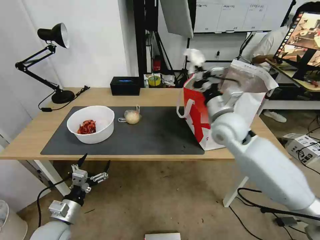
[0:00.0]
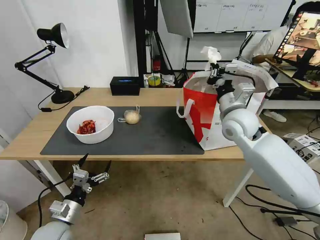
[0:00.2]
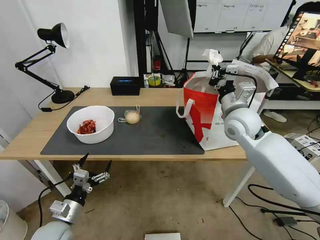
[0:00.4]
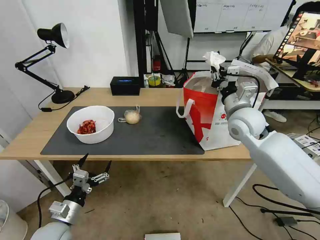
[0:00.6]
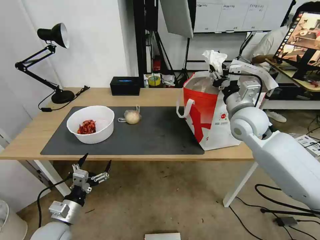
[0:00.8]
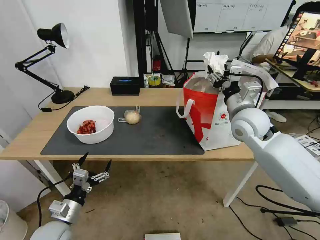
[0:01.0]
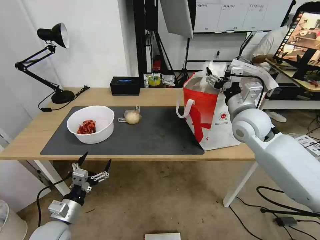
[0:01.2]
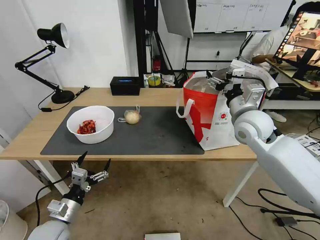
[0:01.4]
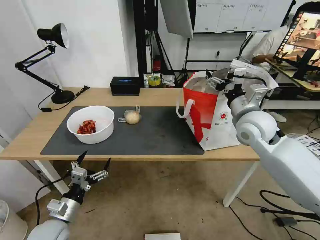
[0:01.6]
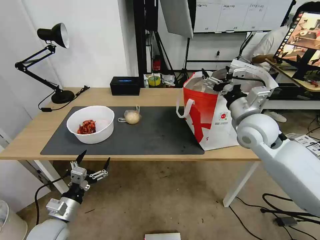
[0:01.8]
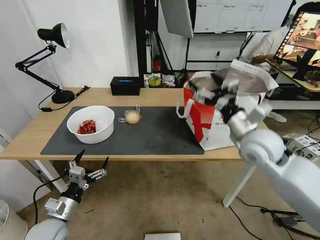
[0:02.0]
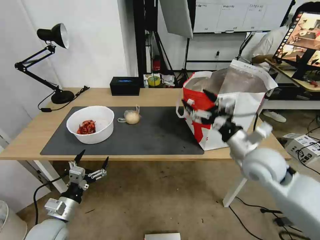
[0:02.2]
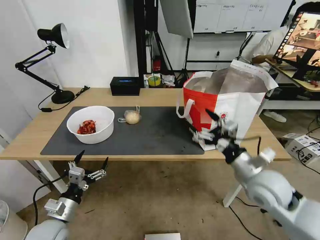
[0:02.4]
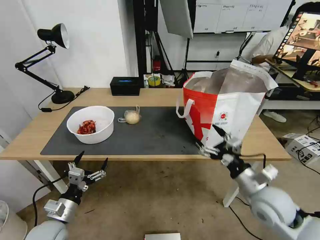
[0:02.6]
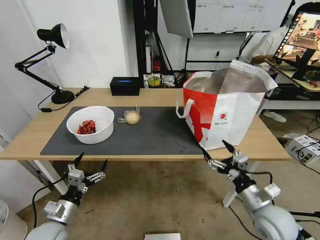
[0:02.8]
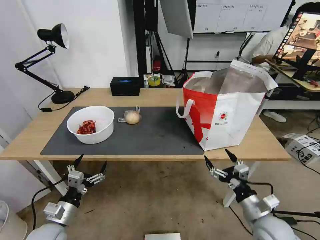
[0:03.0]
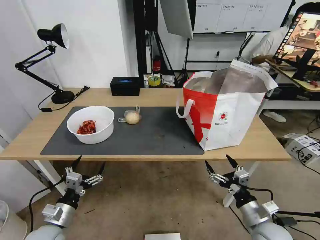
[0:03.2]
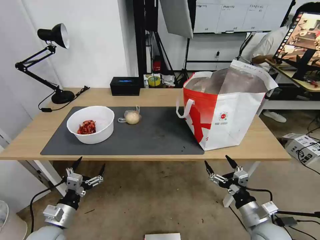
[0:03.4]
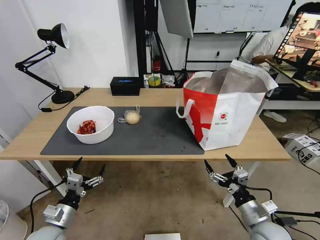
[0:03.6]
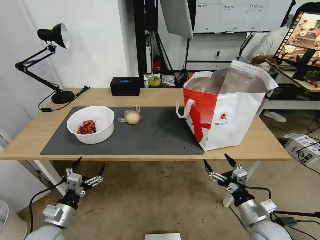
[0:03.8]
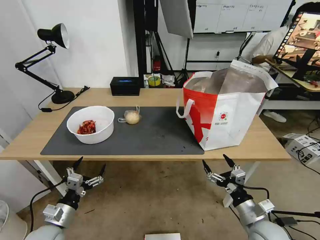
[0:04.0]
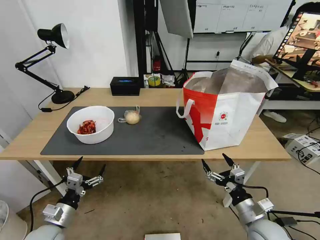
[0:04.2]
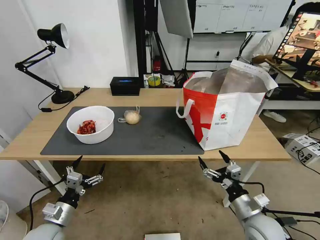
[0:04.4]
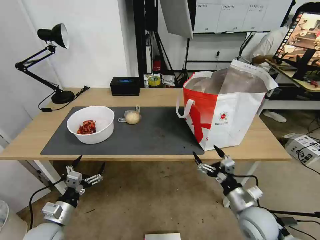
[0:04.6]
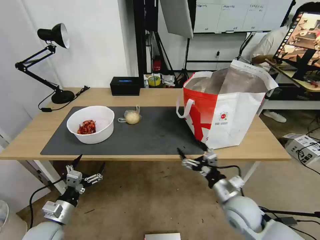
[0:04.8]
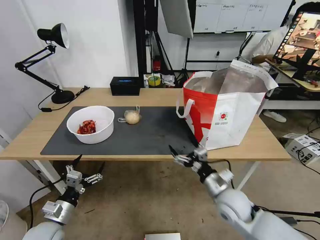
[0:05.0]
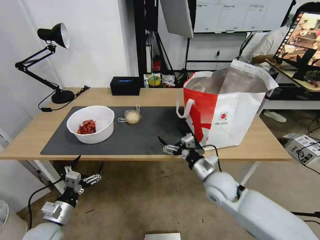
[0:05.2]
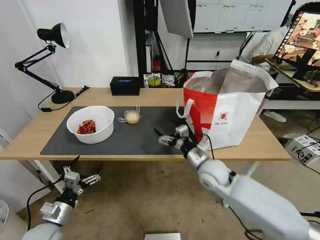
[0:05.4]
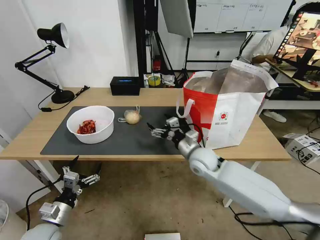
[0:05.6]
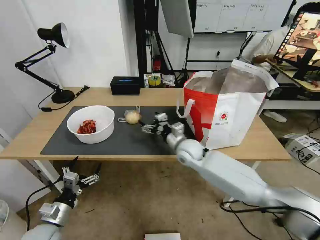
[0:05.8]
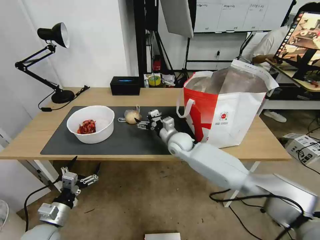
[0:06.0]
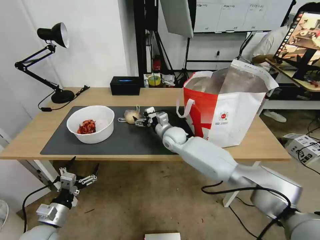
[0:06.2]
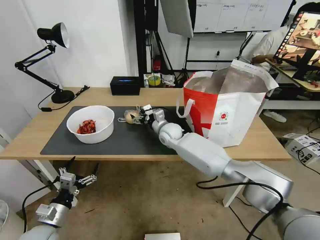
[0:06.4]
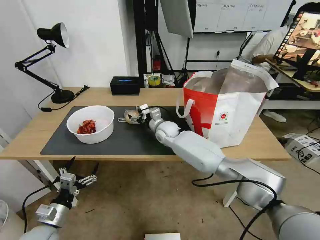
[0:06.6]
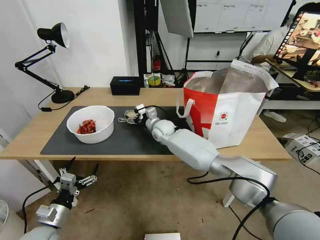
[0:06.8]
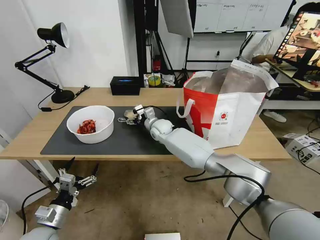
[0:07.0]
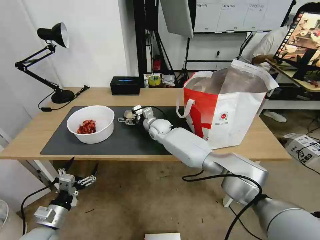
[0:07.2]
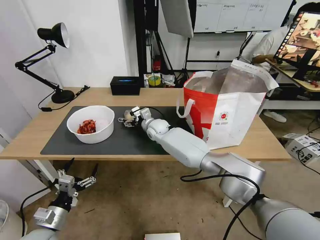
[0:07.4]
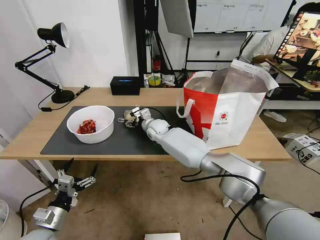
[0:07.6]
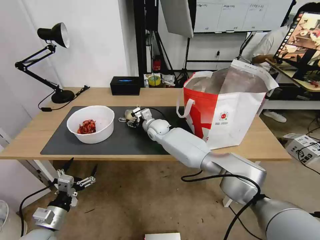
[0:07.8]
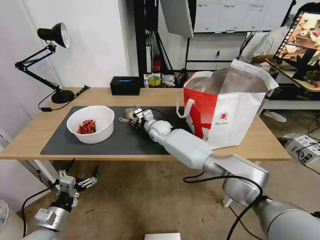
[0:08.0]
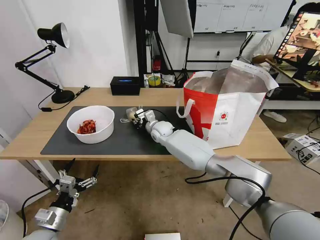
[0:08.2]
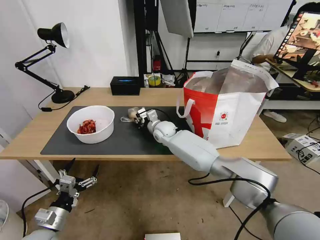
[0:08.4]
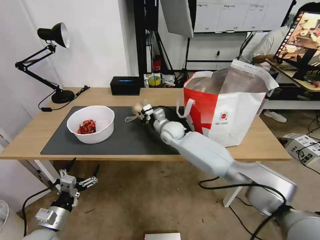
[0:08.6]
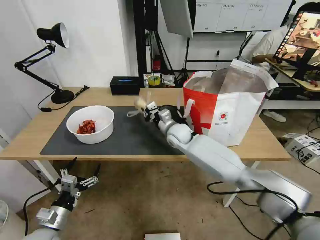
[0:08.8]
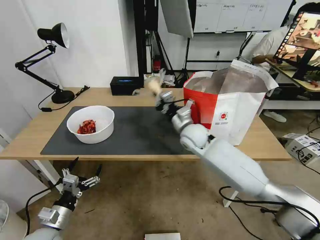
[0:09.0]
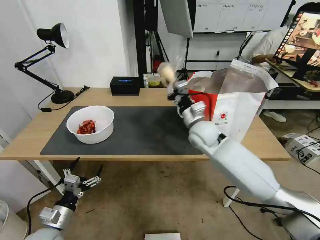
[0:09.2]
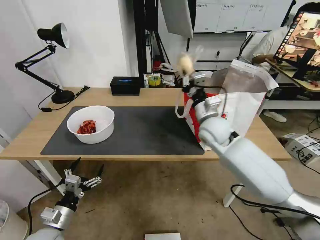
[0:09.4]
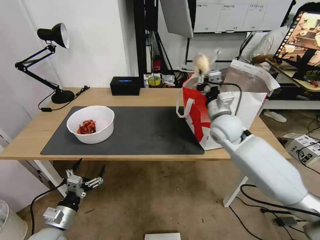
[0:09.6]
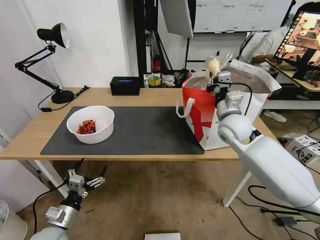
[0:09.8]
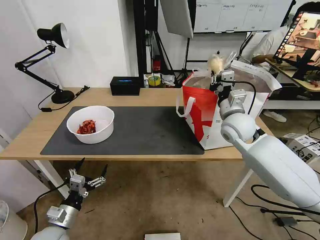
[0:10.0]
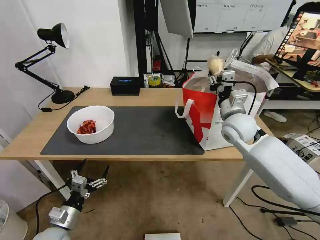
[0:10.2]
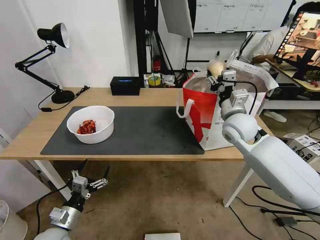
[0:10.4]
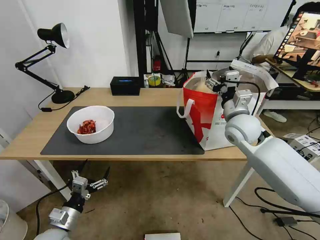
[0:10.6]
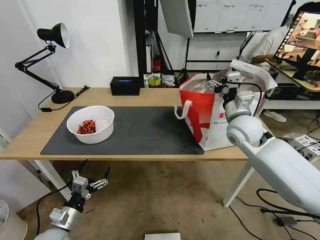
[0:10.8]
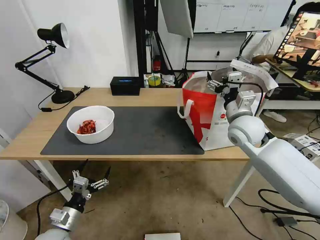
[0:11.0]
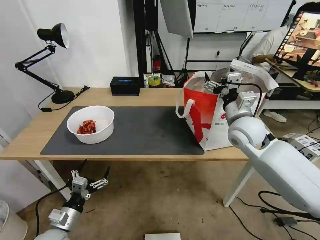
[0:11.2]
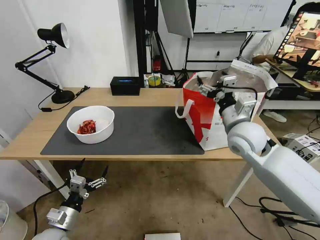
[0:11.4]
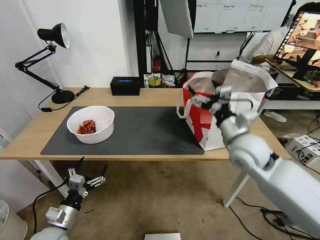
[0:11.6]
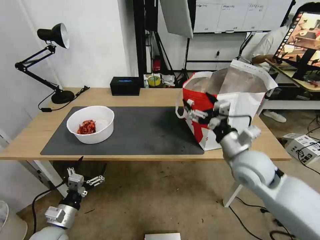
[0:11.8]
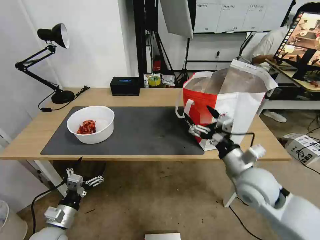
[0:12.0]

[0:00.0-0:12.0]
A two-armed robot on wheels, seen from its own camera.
Task of the whole recording: Pick up the trash from the table and place it into the takeout bag.
0:00.0 to 0:01.6: The right gripper shifts about 5 cm to the right, and opens.
0:01.6 to 0:03.0: The right gripper travels backward and downward by approximately 30 cm.
0:03.0 to 0:04.4: There are only small adjustments of the grippers.
0:04.4 to 0:06.0: The right gripper goes roughly 35 cm forward and to the left.
0:06.0 to 0:07.6: The right gripper moves to the left and forward, some 10 cm.
0:07.6 to 0:09.0: The right gripper is displaced to the right, backward and upward by some 15 cm, and closes its fingers.
0:09.0 to 0:10.4: The right gripper travels to the right and upward by some 15 cm, and opens.
0:10.4 to 0:12.0: The right gripper shifts approximately 15 cm backward.

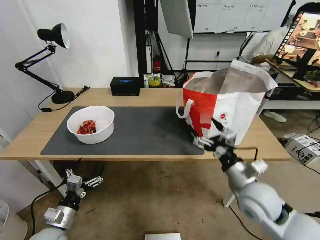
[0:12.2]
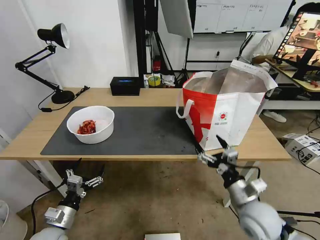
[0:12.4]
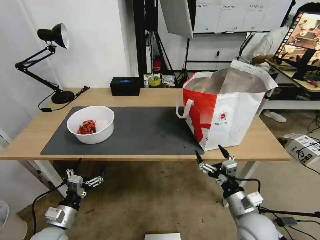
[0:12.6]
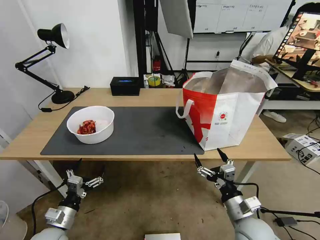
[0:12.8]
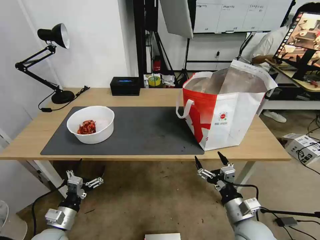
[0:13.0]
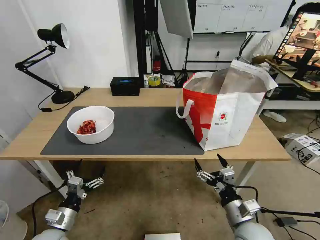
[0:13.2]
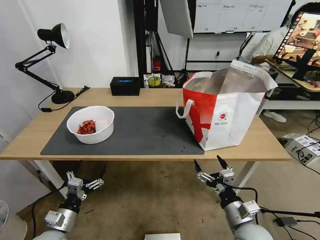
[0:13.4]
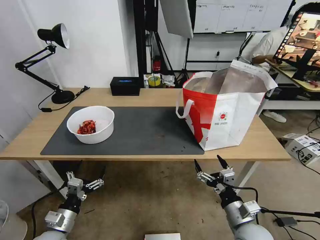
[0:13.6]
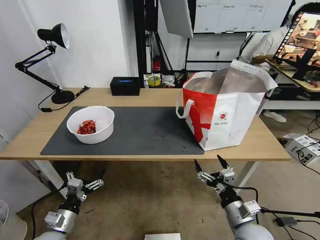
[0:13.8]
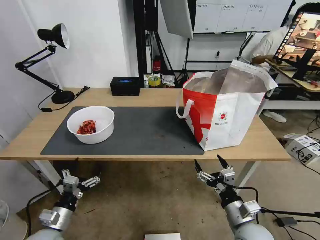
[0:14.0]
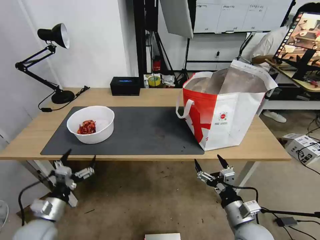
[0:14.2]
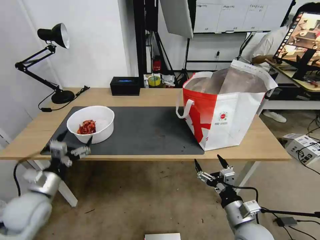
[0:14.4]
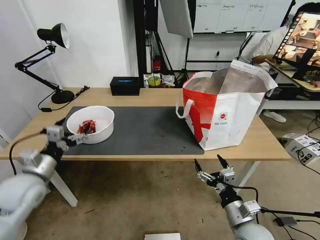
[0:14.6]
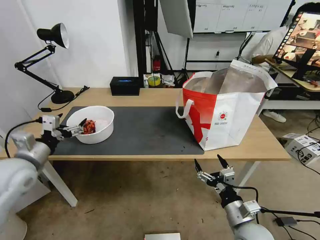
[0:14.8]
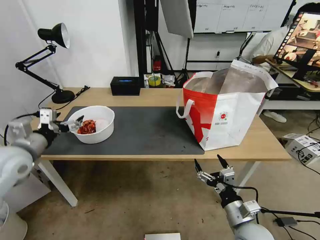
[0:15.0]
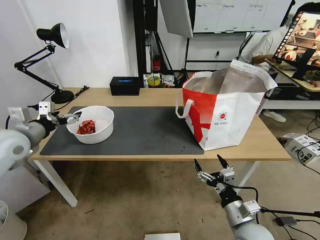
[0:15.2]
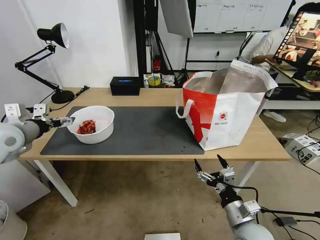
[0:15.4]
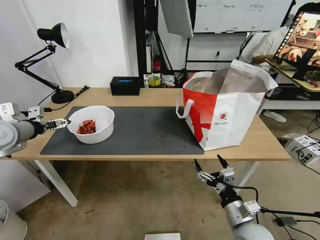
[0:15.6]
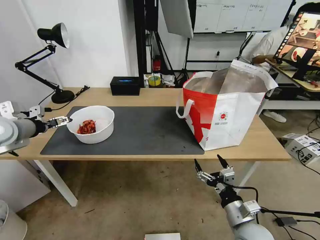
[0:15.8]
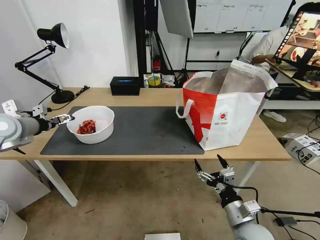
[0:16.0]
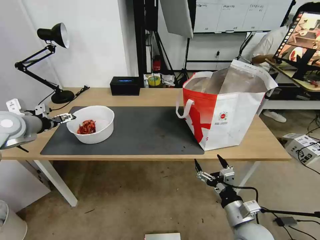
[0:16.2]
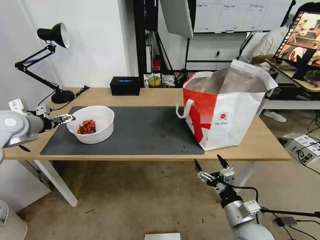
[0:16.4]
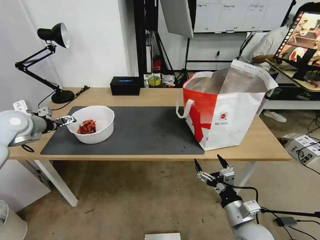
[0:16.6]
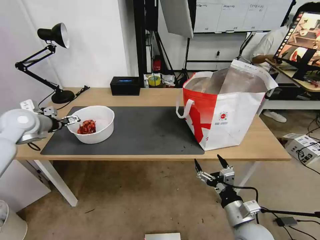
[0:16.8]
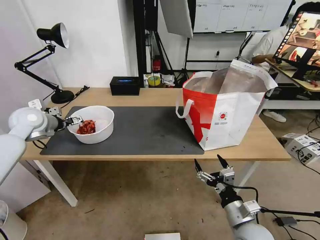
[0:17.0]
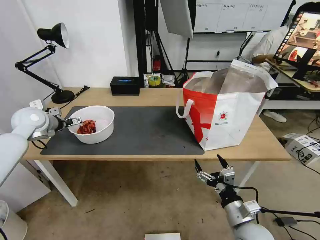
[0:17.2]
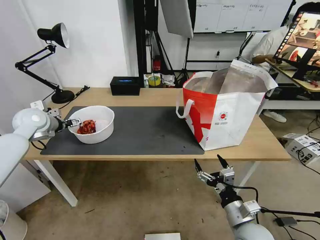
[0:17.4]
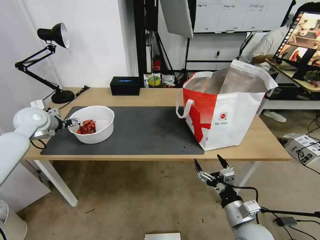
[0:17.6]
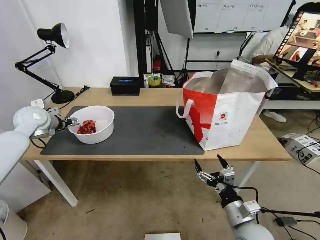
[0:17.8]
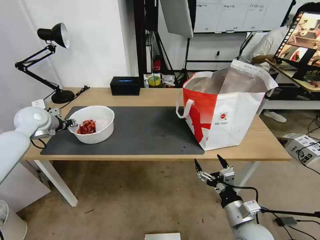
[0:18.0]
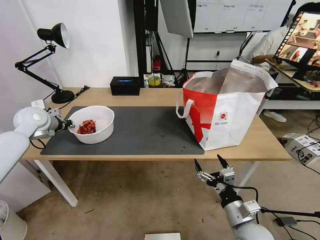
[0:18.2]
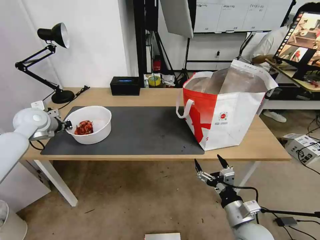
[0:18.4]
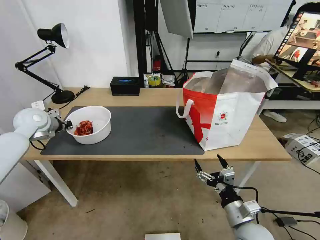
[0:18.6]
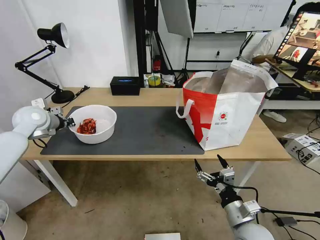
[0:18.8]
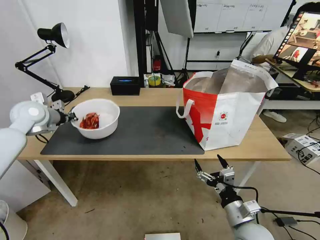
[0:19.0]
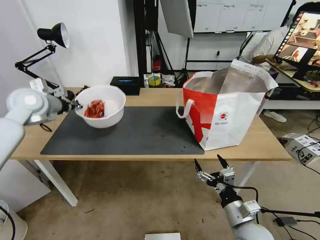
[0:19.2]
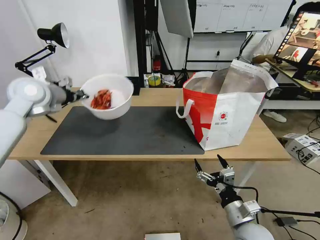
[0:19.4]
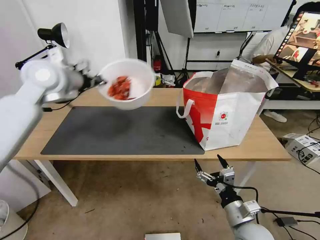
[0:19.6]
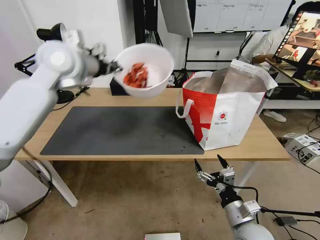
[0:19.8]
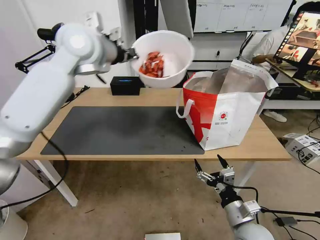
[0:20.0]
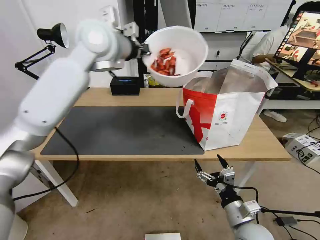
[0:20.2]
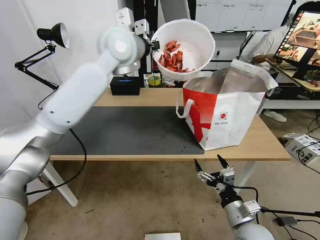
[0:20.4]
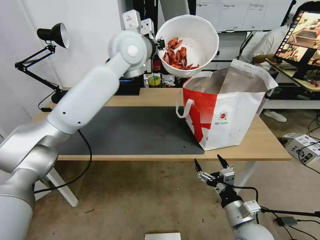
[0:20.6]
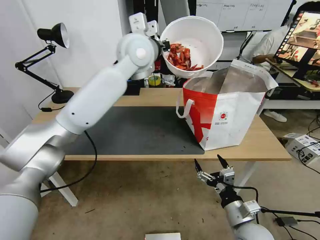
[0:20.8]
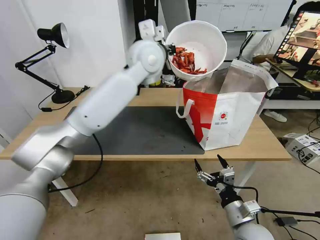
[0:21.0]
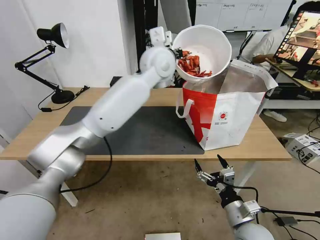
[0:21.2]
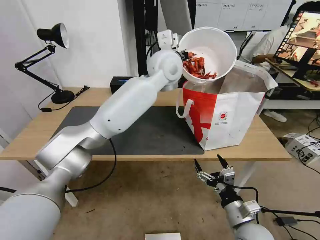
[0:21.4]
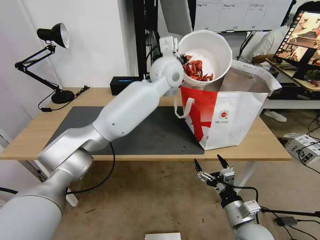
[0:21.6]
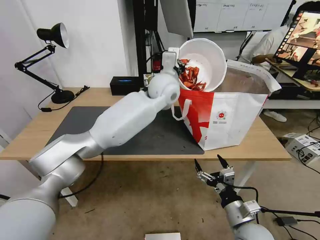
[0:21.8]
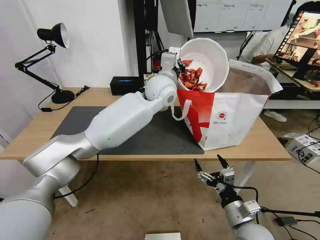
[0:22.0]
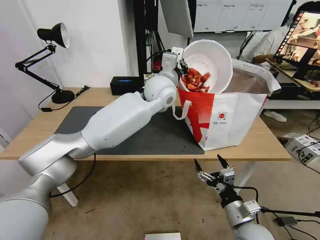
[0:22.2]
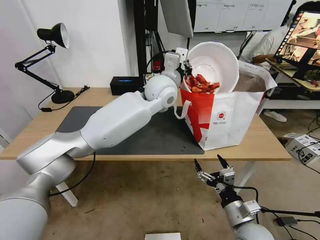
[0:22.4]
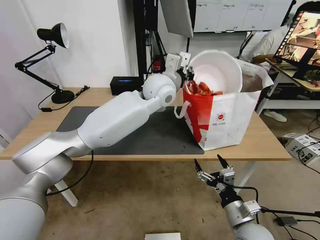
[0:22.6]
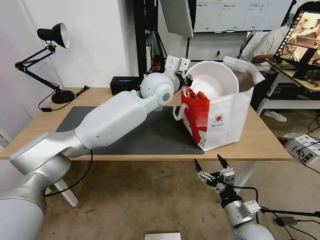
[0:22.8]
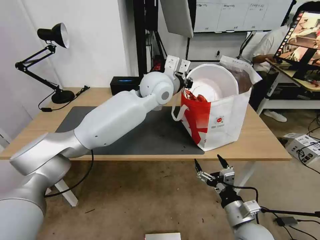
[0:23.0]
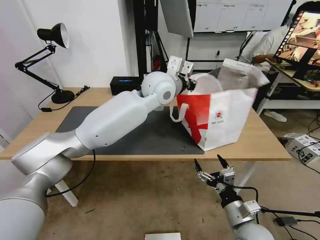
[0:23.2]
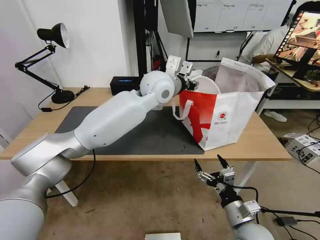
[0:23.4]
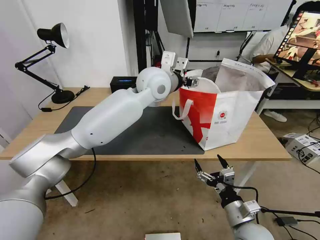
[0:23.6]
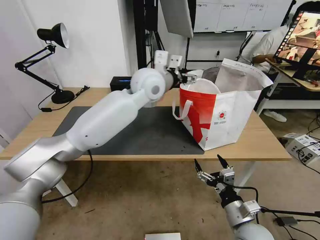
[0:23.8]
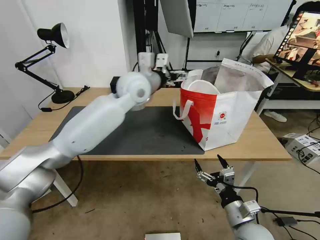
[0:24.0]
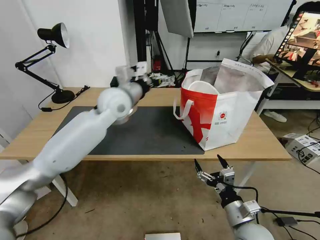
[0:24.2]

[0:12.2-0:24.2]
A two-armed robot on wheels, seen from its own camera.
Task of the whole recording: Pick up the trash from the table and place it into the takeout bag.
0:12.2 to 0:13.8: The right gripper is displaced downward and backward by about 10 cm.
0:13.8 to 0:15.2: The left gripper moves upward and forward, about 30 cm.
0:15.2 to 0:16.6: The left gripper moves forward, about 5 cm.
0:16.6 to 0:18.2: The left gripper changes place by some 5 cm, and closes.
0:18.2 to 0:19.8: The left gripper shifts approximately 25 cm upward and to the right.
0:19.8 to 0:21.2: The left gripper shifts approximately 25 cm to the right.
0:21.2 to 0:22.6: The left gripper shifts roughly 5 cm downward.
0:22.6 to 0:24.2: The left gripper goes about 15 cm to the left, and opens its fingers.
